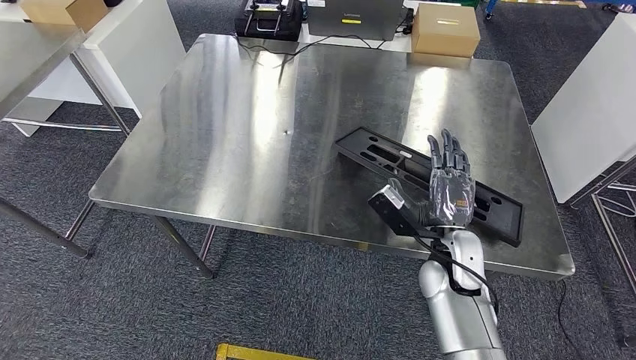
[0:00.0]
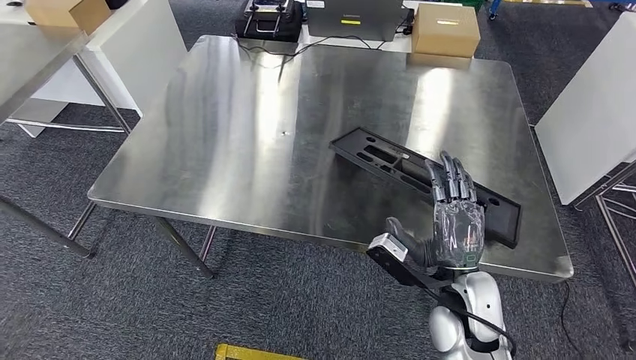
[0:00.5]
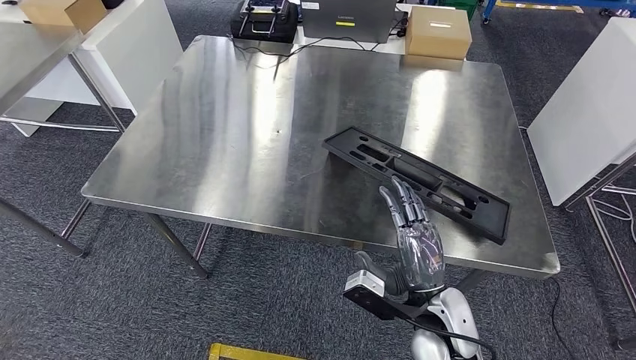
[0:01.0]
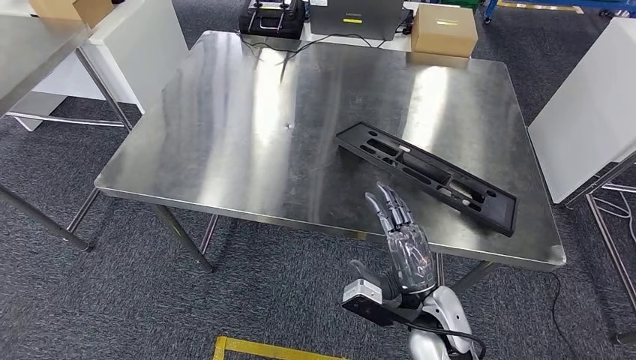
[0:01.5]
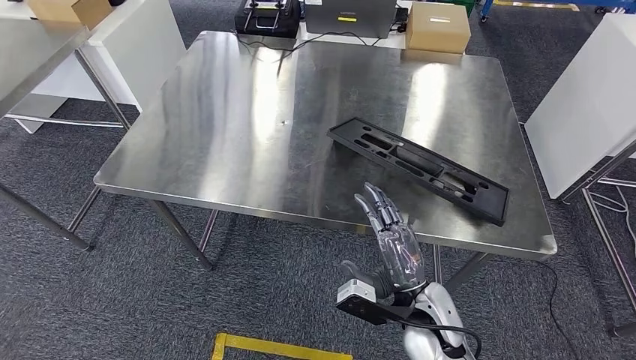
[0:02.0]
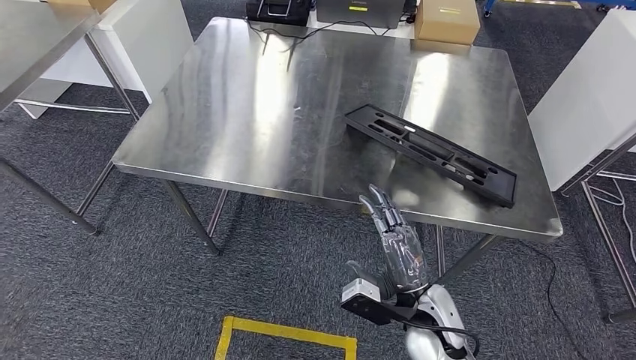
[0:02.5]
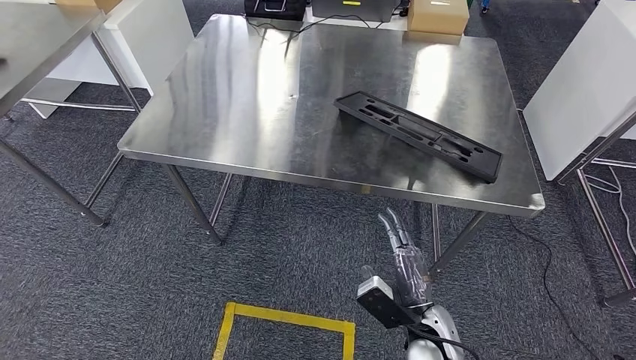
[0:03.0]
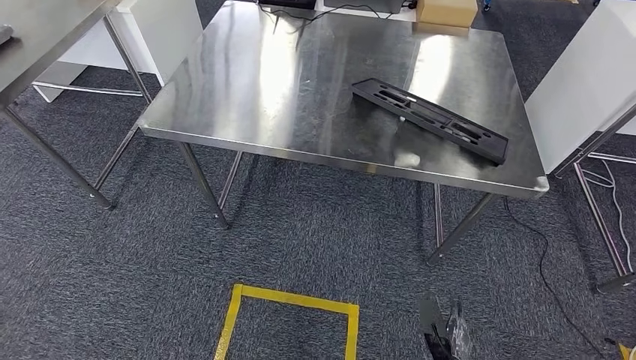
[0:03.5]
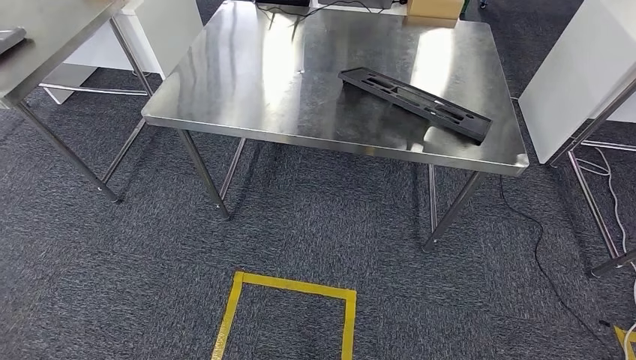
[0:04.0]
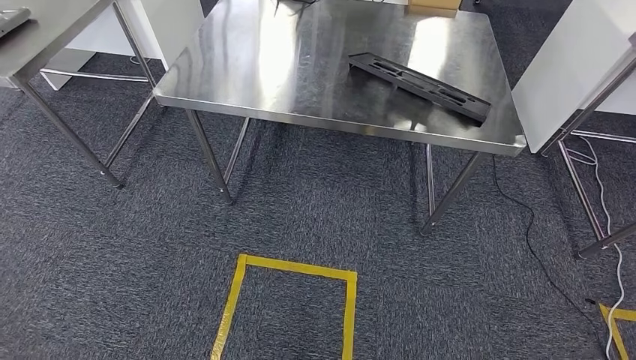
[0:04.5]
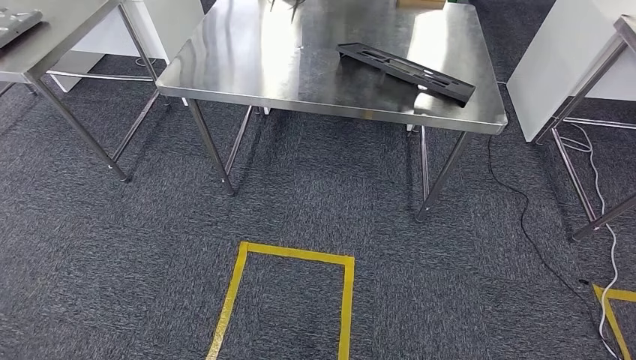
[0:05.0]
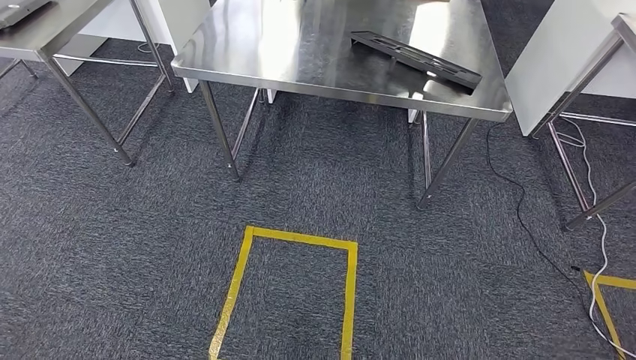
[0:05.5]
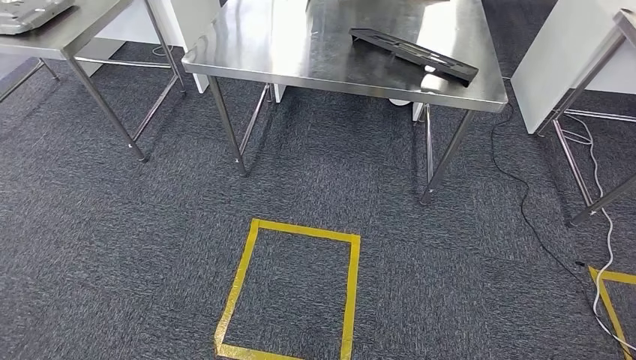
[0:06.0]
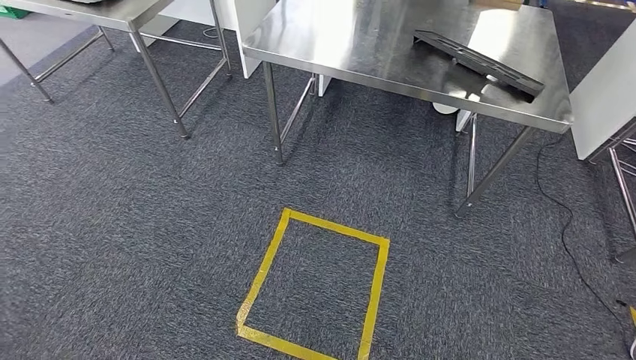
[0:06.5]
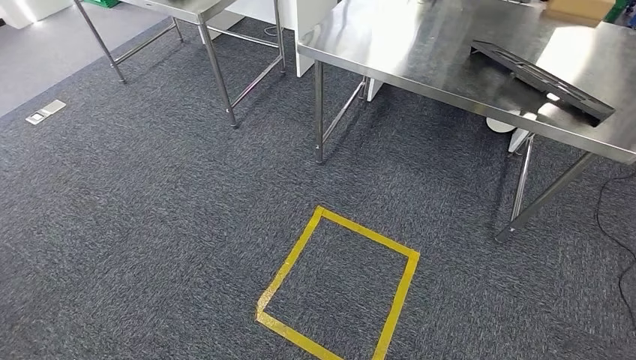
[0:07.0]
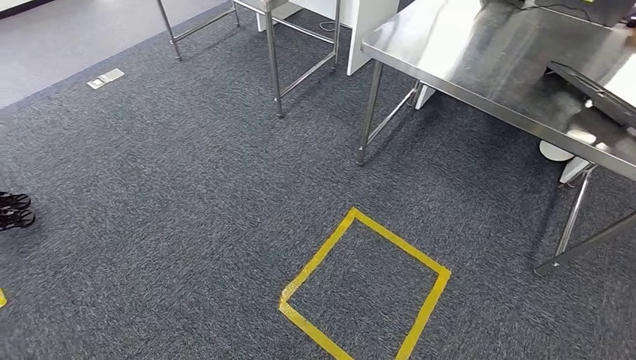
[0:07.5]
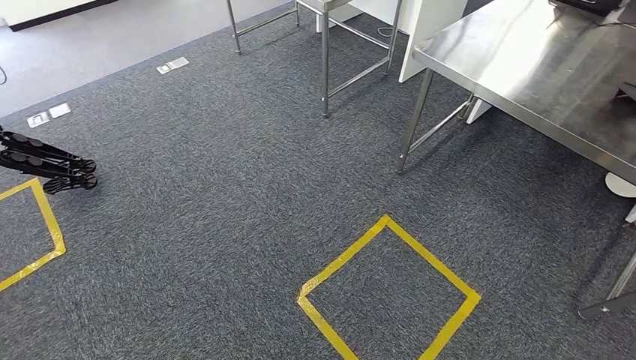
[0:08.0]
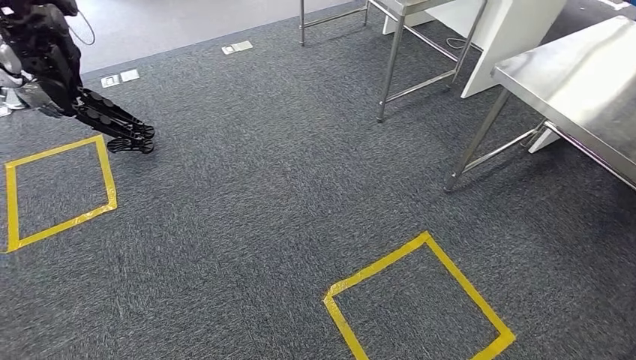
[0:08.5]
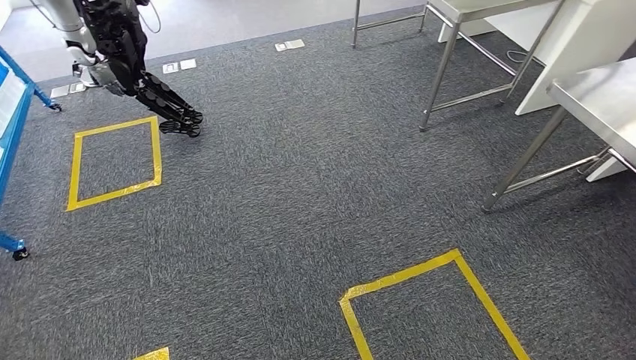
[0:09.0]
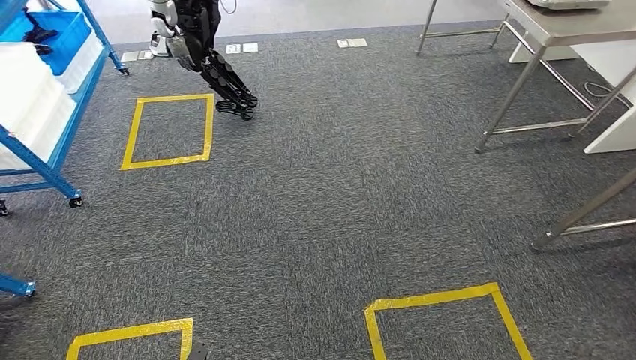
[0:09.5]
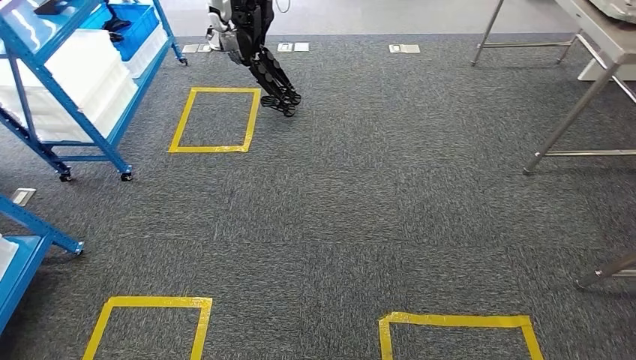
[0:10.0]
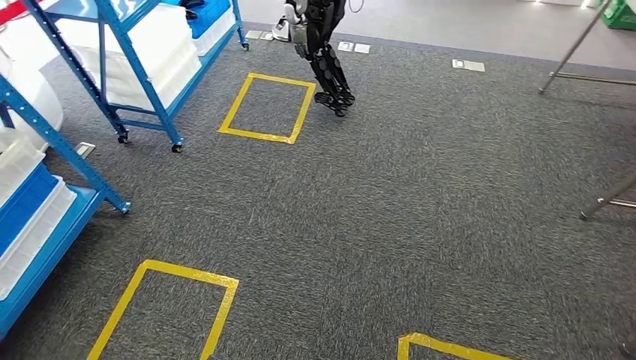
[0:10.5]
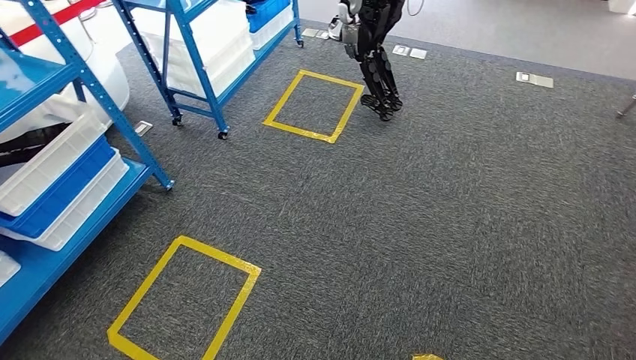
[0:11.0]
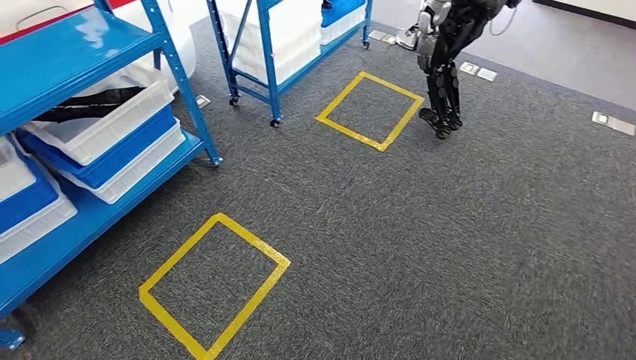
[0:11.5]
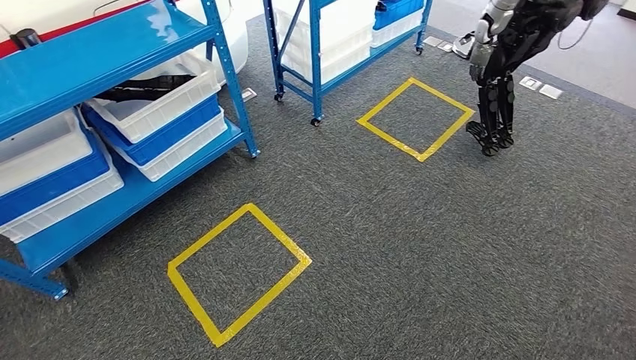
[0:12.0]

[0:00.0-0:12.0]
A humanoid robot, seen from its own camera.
Step, 0:00.0 to 0:05.0: Insert the large material into the corresponding slot on the workbench.
